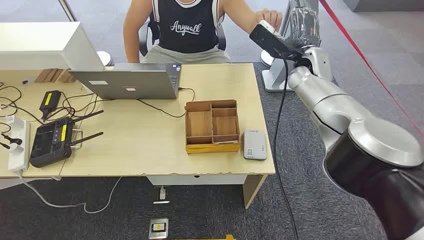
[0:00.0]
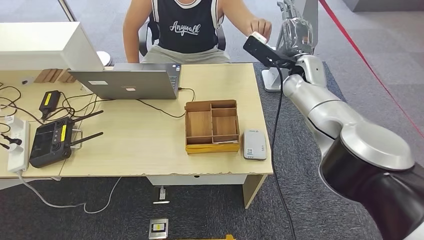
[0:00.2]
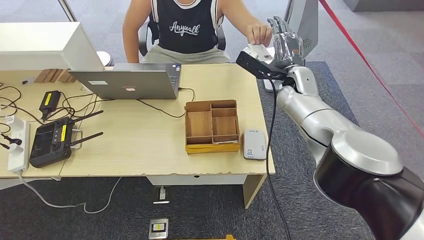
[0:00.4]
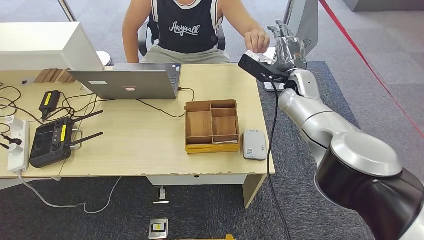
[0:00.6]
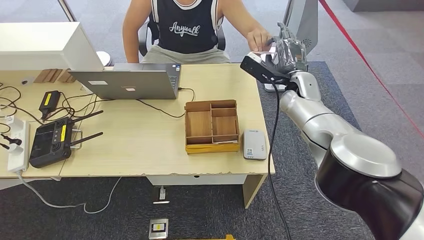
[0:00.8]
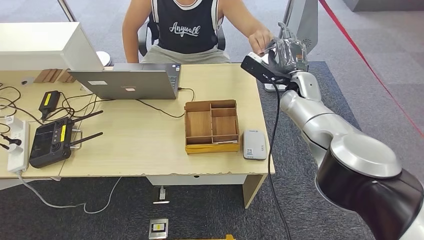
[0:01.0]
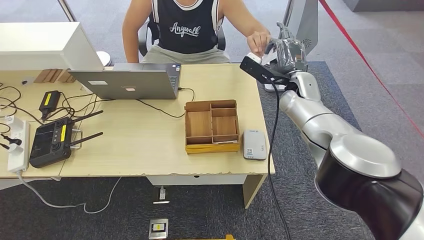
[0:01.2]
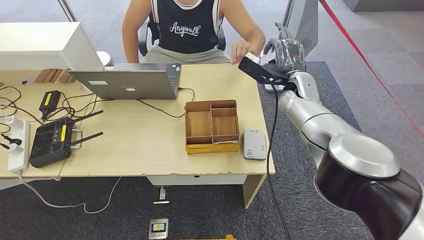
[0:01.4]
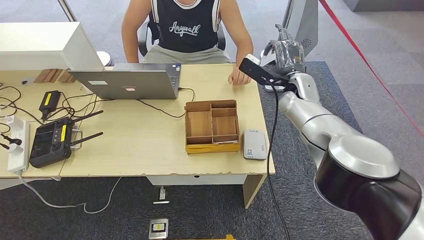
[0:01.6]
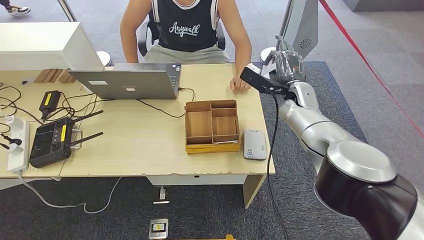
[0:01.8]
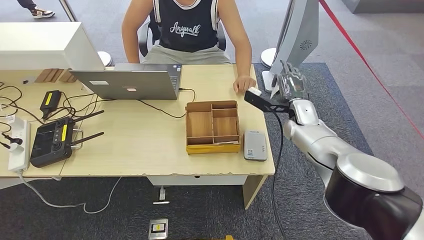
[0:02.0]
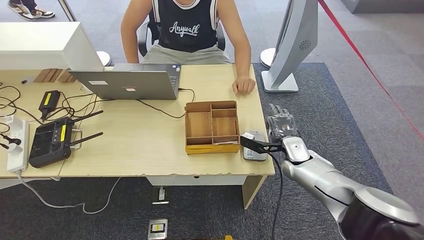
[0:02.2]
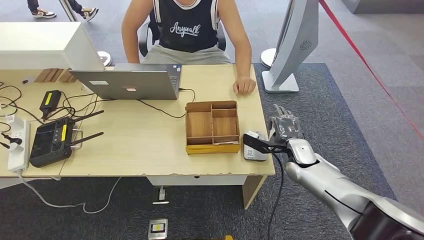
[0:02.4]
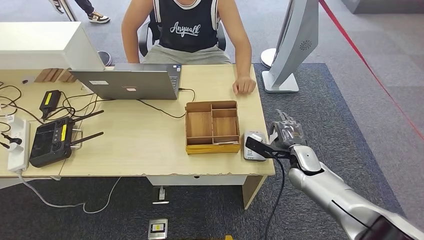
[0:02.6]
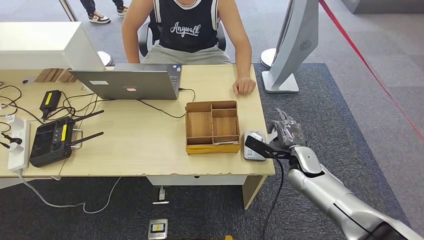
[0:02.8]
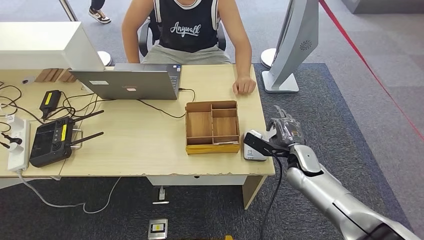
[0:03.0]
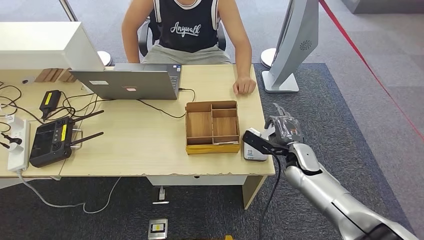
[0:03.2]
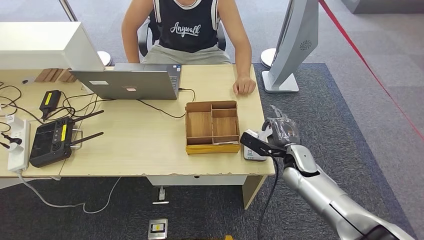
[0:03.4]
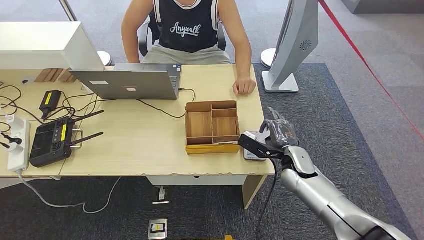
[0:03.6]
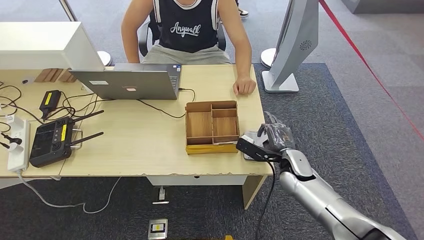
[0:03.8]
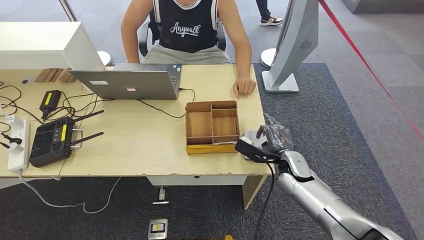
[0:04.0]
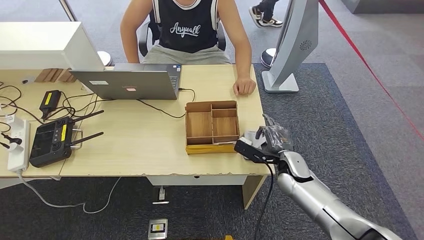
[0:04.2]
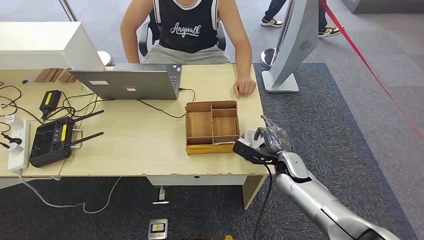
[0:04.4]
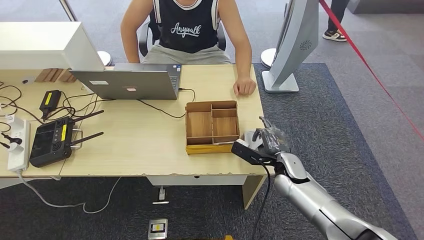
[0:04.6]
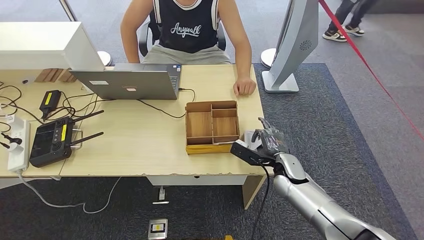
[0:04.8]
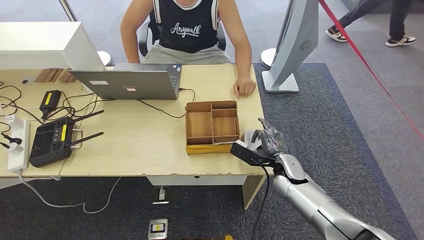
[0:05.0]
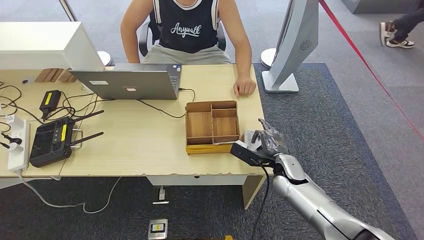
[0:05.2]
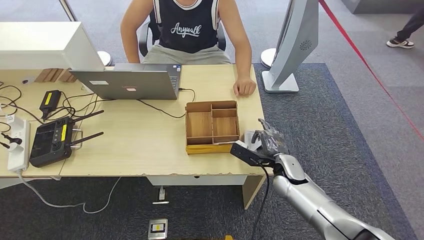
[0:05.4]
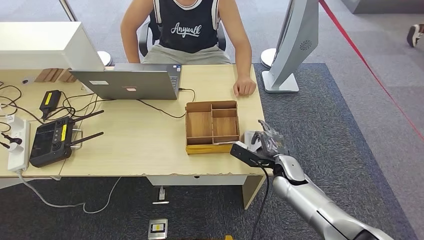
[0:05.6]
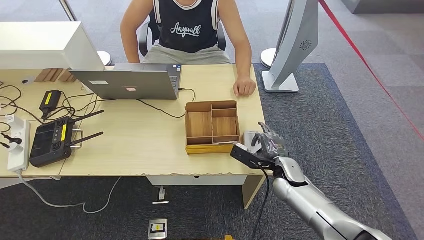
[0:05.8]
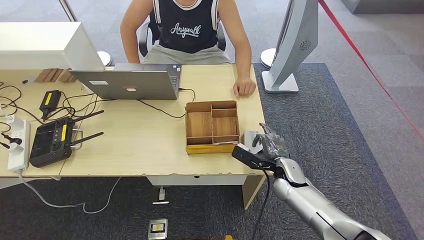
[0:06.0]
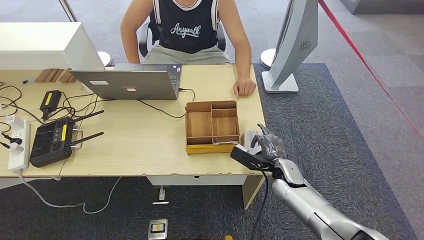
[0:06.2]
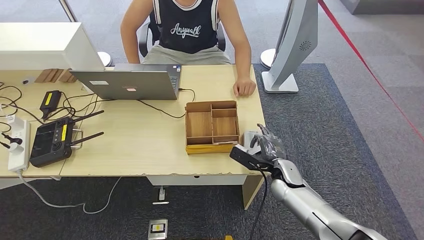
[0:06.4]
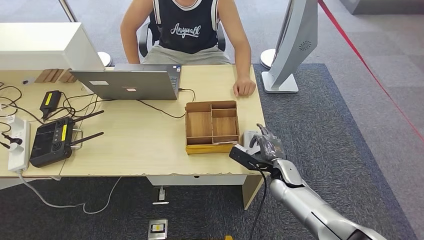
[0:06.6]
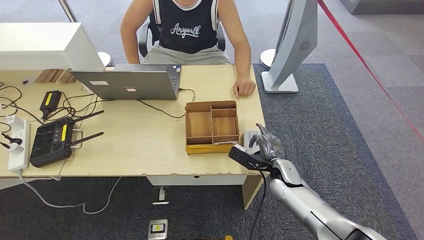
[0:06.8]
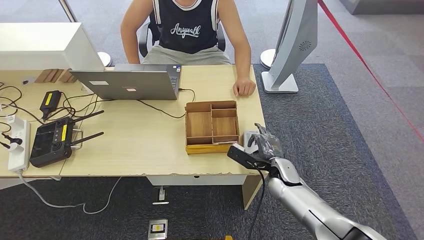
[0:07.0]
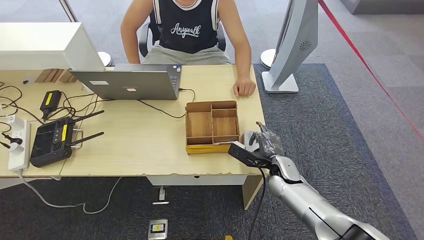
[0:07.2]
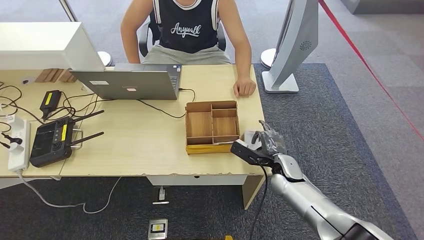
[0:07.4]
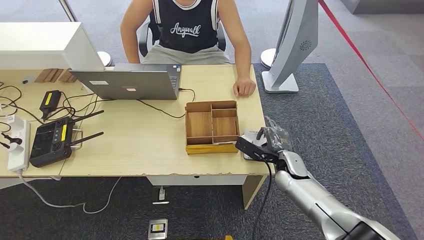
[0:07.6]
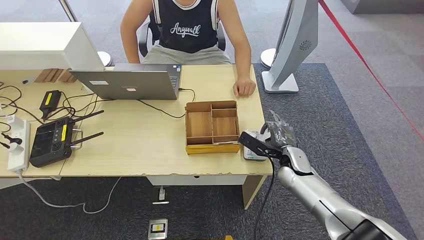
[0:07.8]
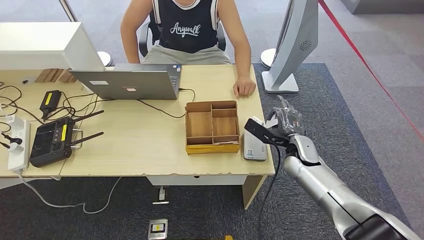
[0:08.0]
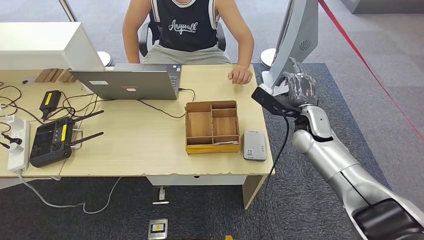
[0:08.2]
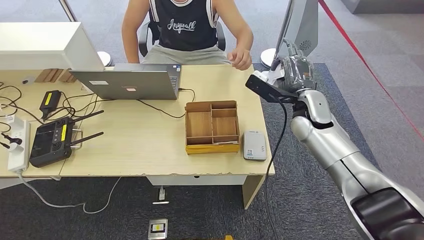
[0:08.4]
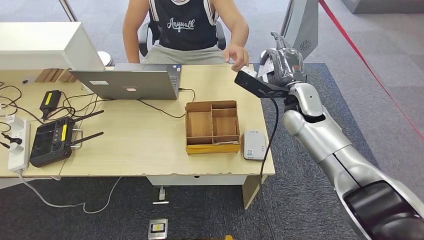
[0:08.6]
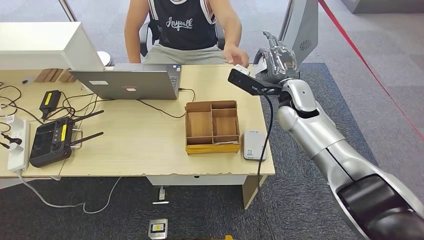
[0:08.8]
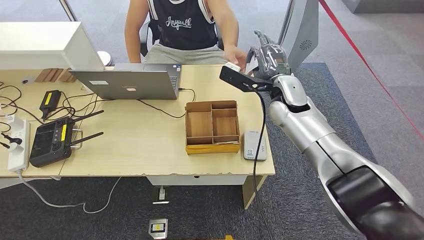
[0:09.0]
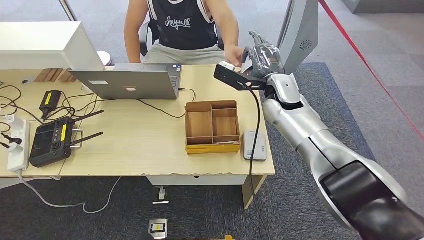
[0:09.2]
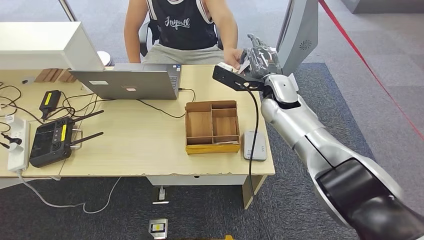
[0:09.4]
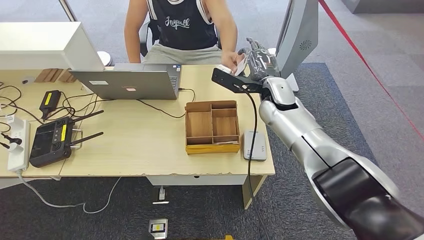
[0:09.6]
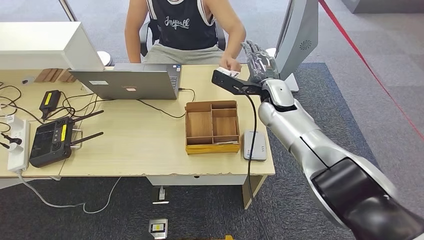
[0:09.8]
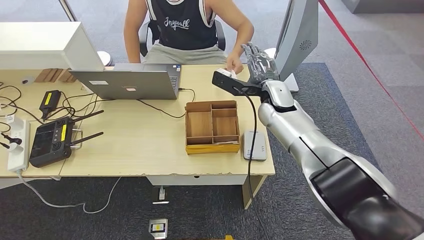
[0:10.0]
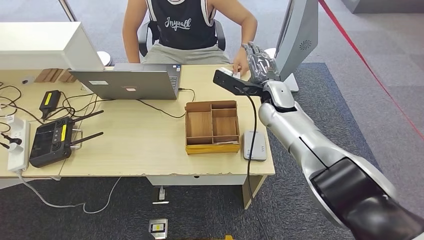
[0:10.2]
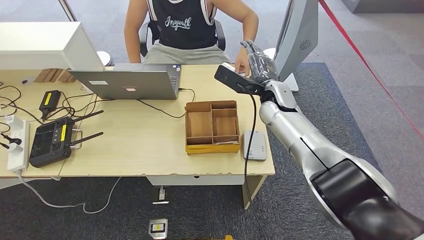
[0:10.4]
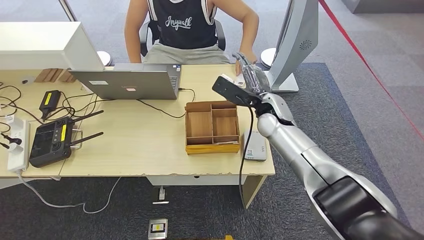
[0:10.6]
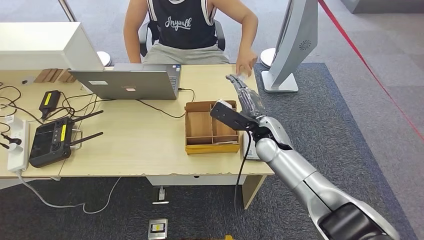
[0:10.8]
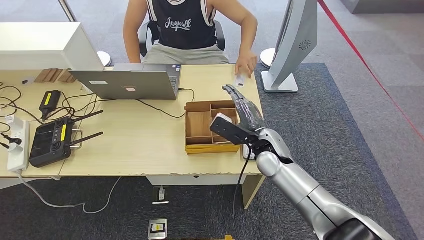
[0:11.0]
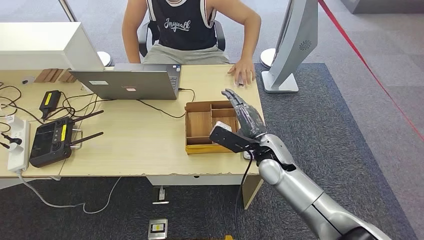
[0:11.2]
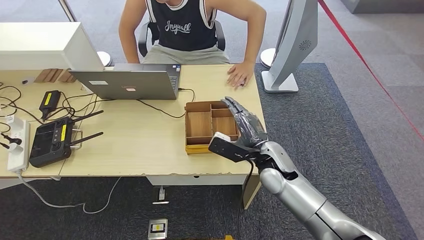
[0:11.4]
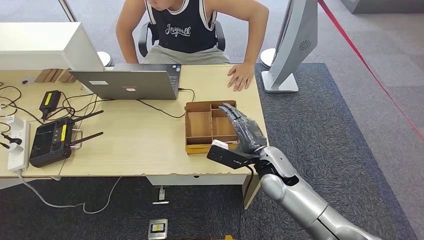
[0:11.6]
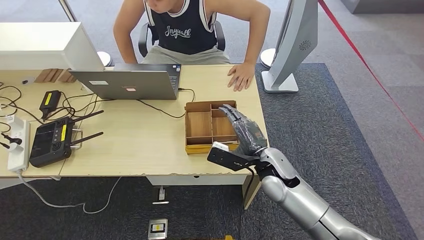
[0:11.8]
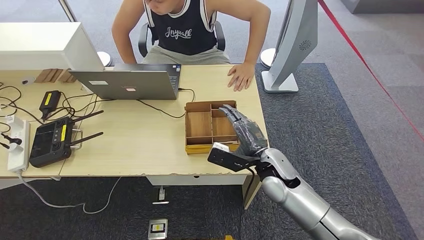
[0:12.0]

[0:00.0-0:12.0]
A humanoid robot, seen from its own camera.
Step, 0:00.0 to 0:01.4: Take the ID card from the person's hand.
Step, 0:01.6 to 0:05.8: Place the ID card on the card reader.
Step, 0:06.2 to 0:10.0: Hand the ID card to the person.
0:01.6 to 0:03.0: The right hand goes approximately 20 cm downward and backward.
0:03.0 to 0:06.0: The hands stay close to where they were, moving slightly.
0:06.0 to 0:07.6: There are only small adjustments of the hands.
0:07.6 to 0:09.0: The right hand shifts some 25 cm upward and forward.
0:09.0 to 0:10.4: The hands move only a little.

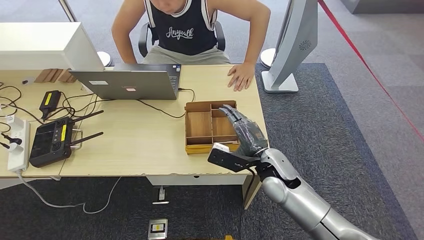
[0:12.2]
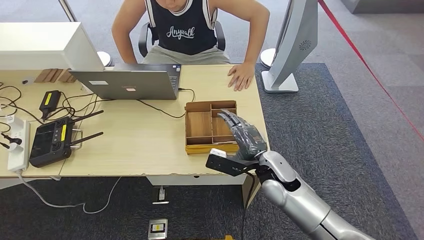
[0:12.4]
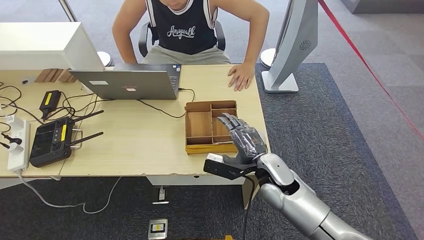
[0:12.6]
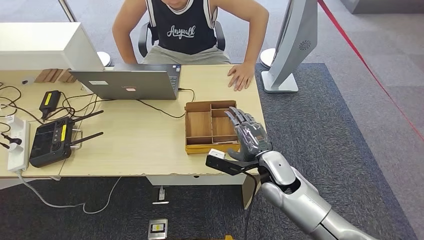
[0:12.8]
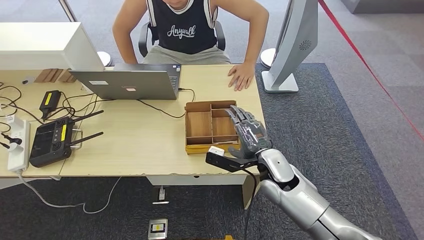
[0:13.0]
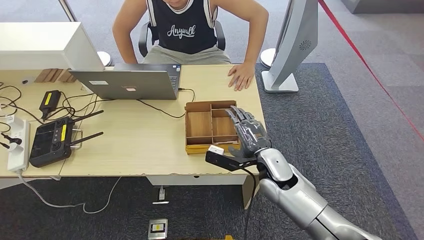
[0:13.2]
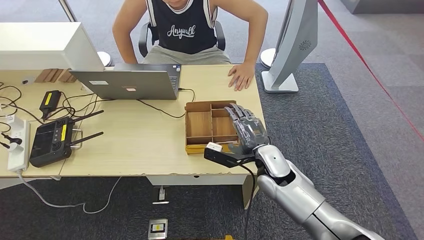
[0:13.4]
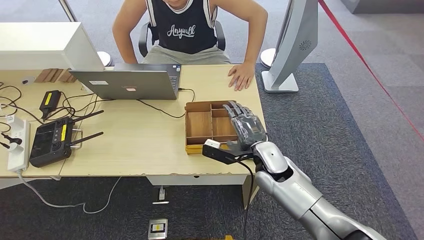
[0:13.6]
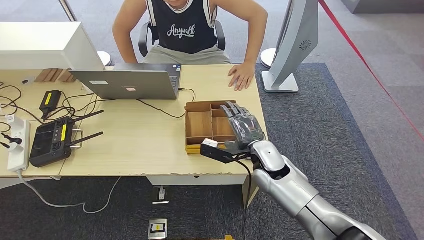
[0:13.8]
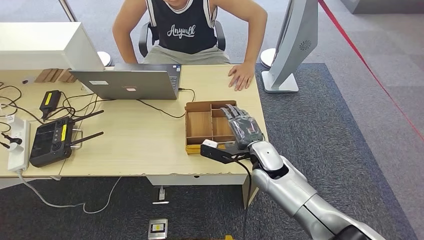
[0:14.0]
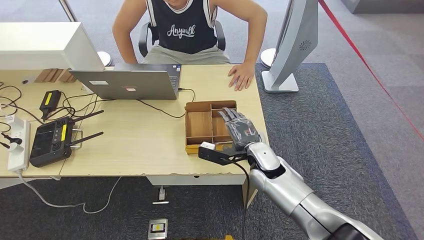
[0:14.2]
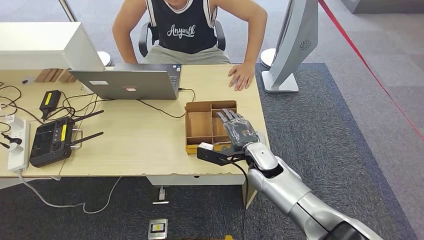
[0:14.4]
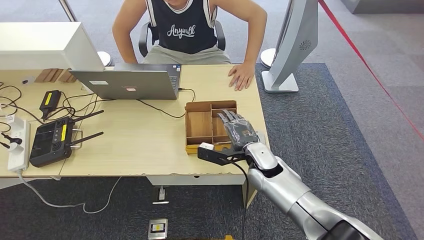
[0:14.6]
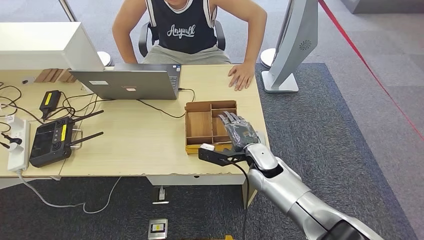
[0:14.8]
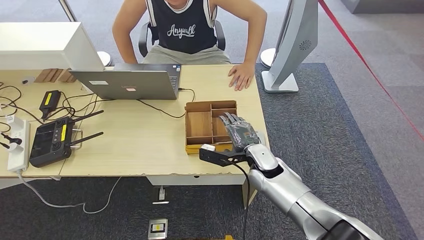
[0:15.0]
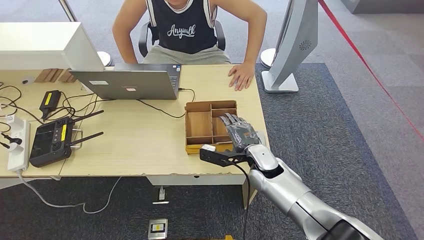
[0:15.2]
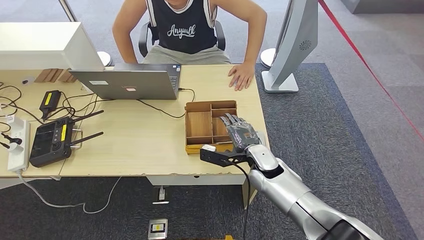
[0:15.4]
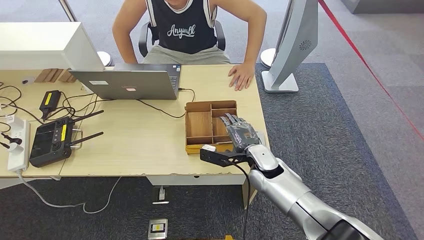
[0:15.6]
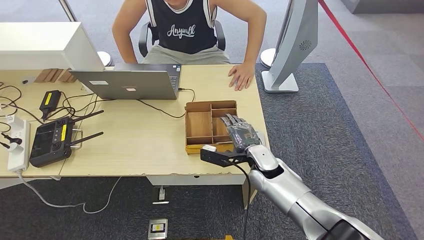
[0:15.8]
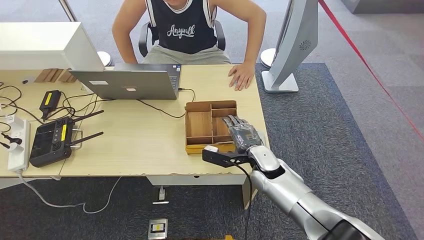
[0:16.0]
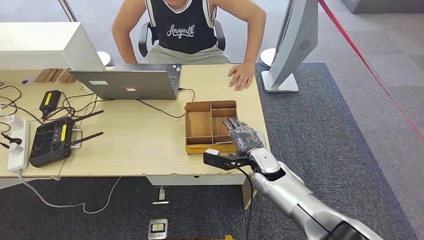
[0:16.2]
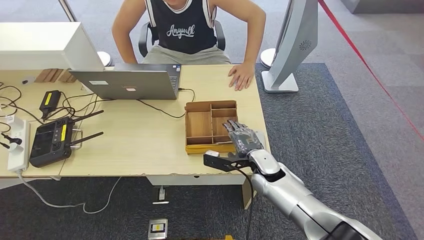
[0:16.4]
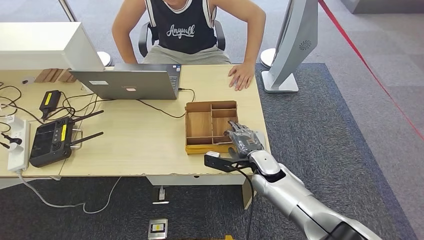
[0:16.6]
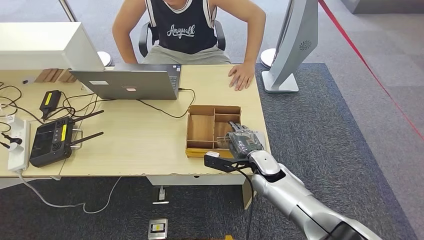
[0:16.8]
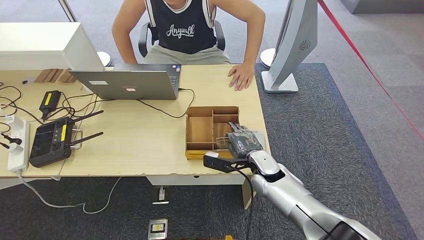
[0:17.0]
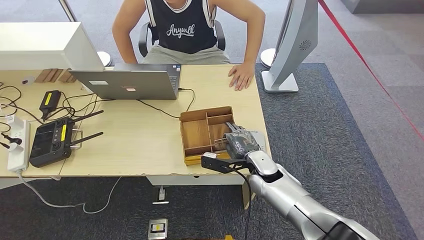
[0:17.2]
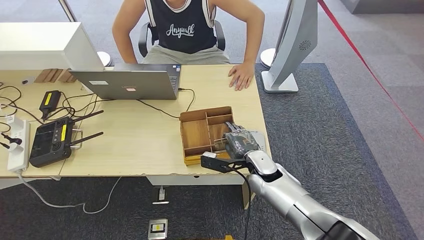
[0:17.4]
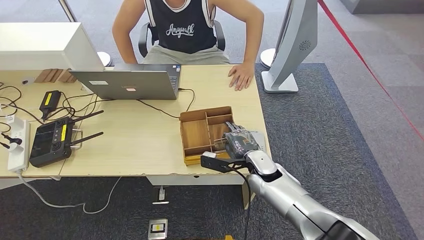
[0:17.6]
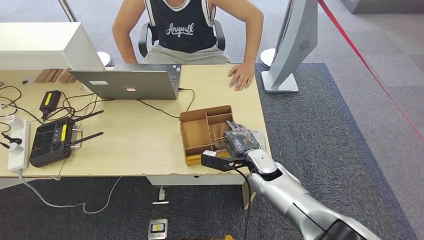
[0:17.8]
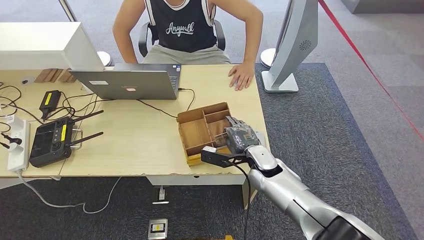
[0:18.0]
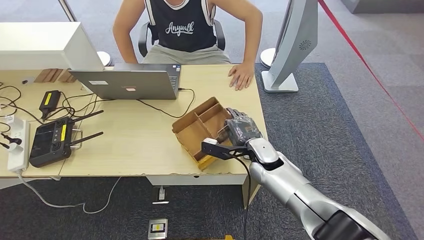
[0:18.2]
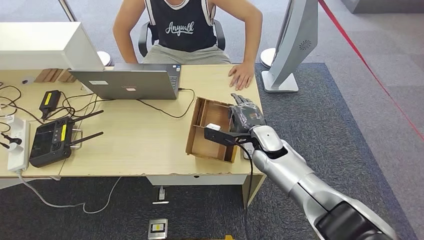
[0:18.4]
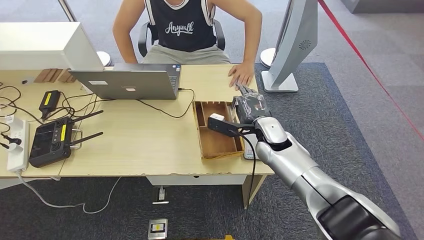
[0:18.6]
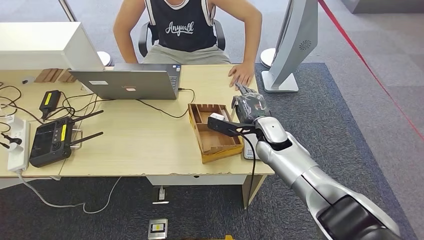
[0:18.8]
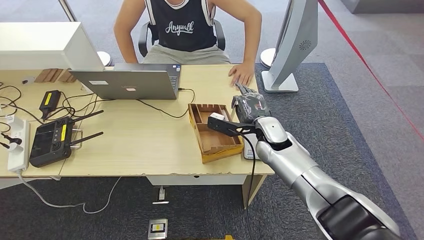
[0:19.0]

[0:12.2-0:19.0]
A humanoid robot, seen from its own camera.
Step, 0:12.2 to 0:18.8: Pick up the room key from the key card box.
0:13.6 to 0:16.2: The hands make only small movements.
0:16.2 to 0:17.6: Neither hand changes place.
0:17.6 to 0:19.0: The right hand travels upward and forward by about 10 cm.
